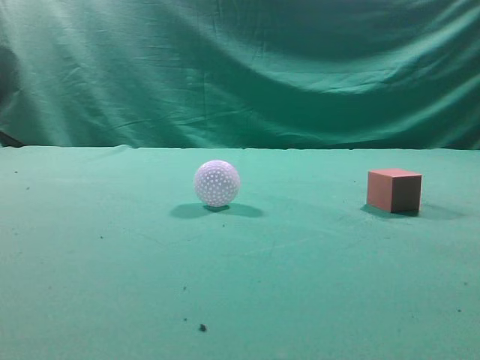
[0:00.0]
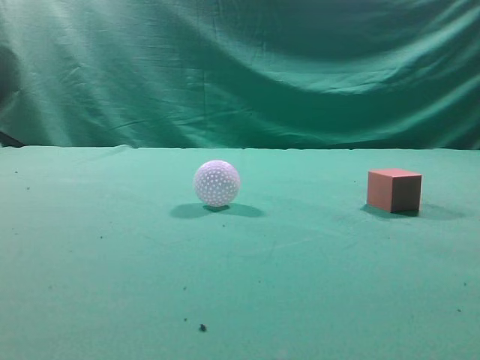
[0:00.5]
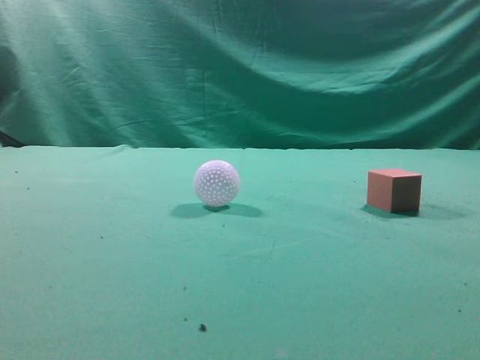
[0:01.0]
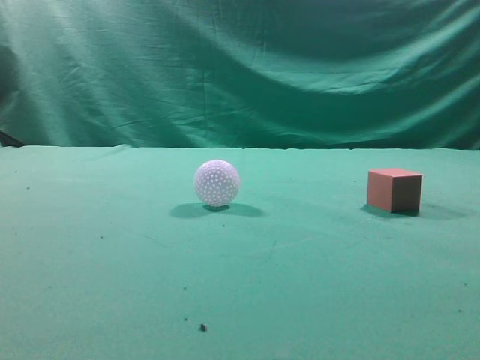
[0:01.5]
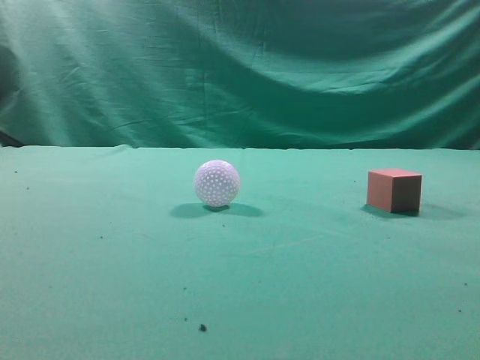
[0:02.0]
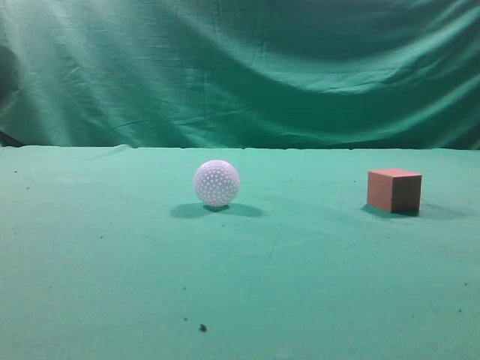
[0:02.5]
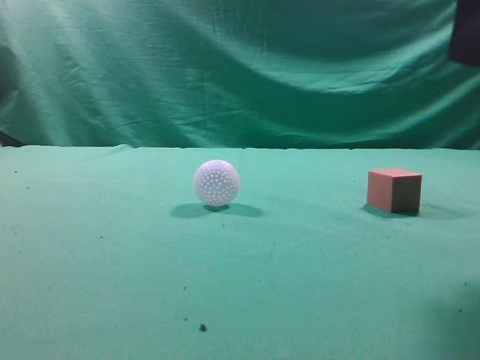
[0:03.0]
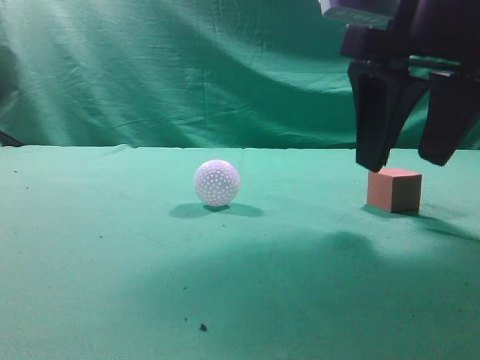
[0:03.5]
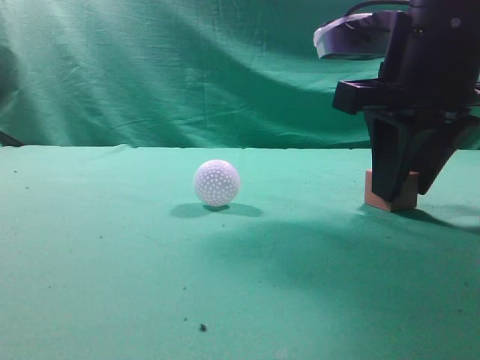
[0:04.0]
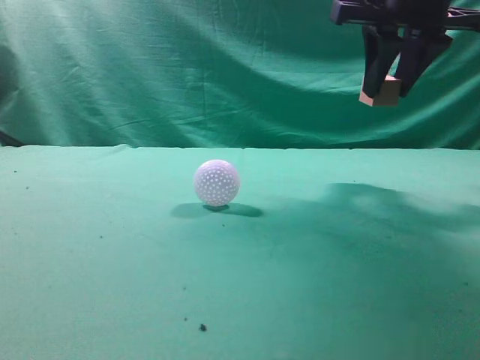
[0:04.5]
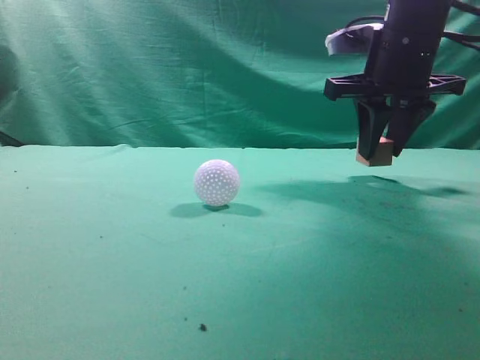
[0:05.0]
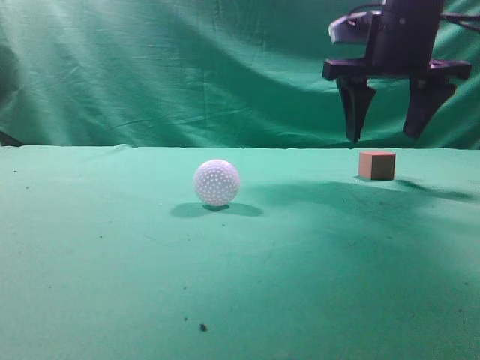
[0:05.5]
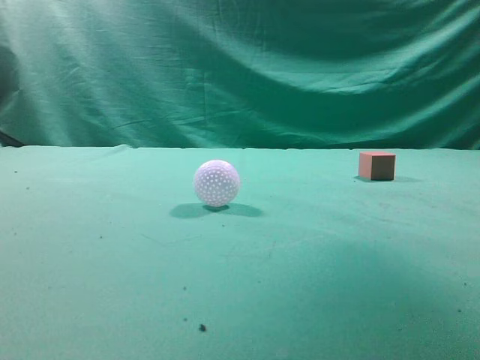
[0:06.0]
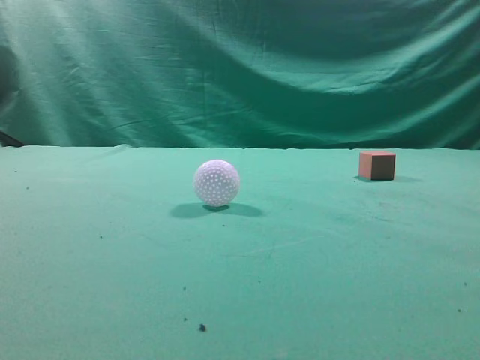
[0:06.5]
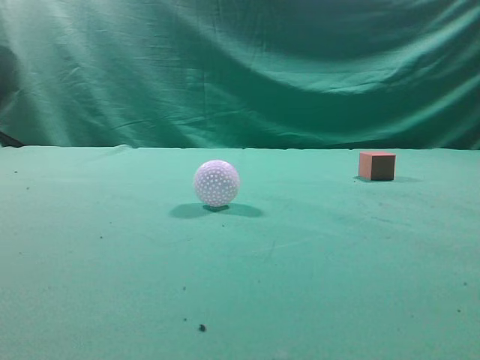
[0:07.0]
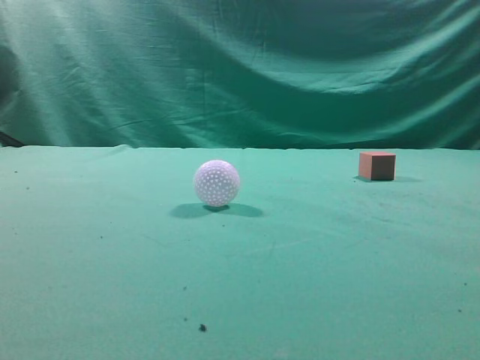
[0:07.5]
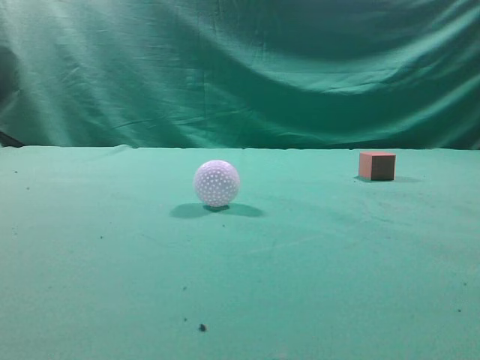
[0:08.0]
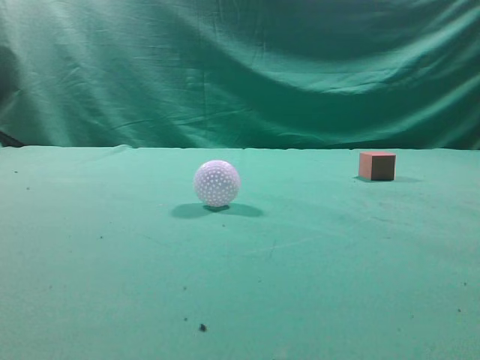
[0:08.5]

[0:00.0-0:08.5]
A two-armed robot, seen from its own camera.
Task of the whole recording: pick up the cube block and place it in another position on the table.
Step, 0:00.0 to 0:04.0: Pick up the small cube.
Step, 0:04.5 to 0:05.0: Place the small cube on the ahead of the table.
0:02.0 to 0:04.0: The right gripper travels forward, to the left and downward by some 25 cm, and opens its fingers.
0:04.0 to 0:06.5: The right gripper is displaced upward, backward and to the right by some 25 cm, and closes.
